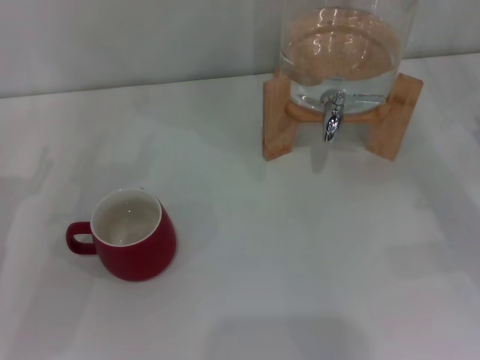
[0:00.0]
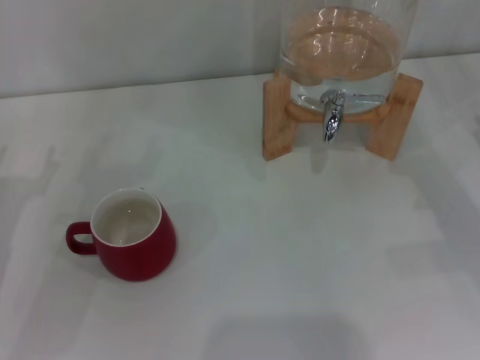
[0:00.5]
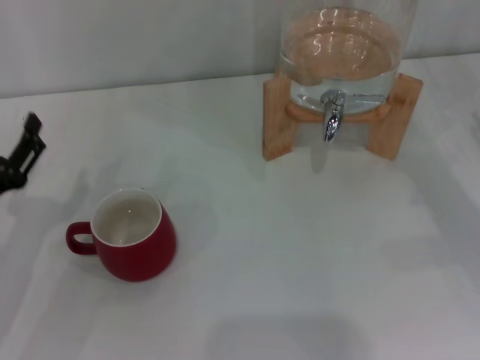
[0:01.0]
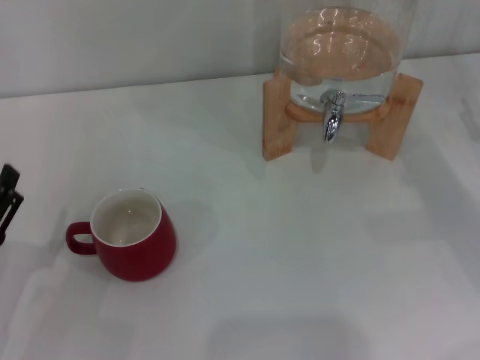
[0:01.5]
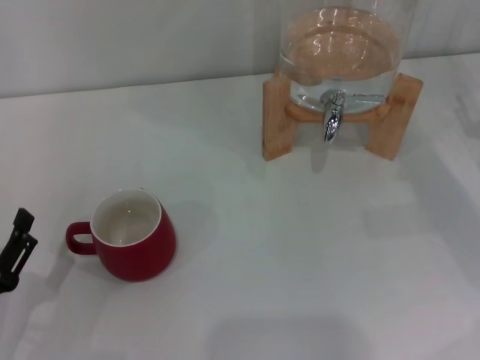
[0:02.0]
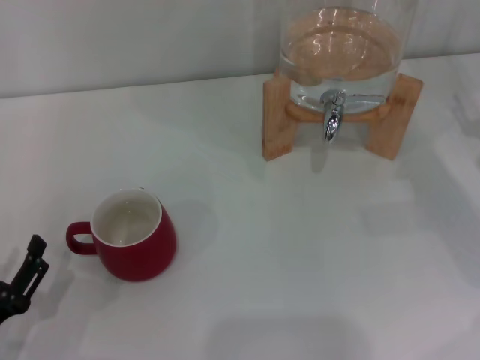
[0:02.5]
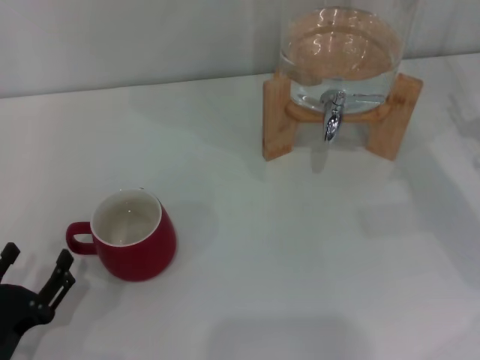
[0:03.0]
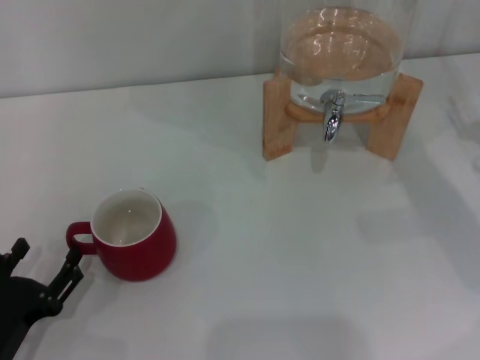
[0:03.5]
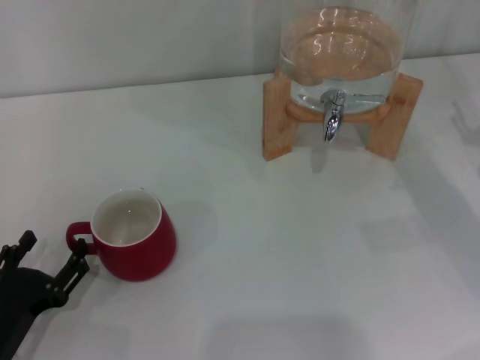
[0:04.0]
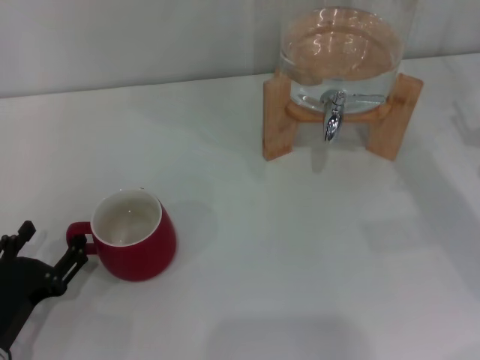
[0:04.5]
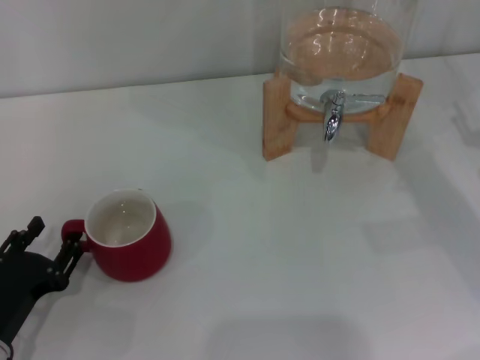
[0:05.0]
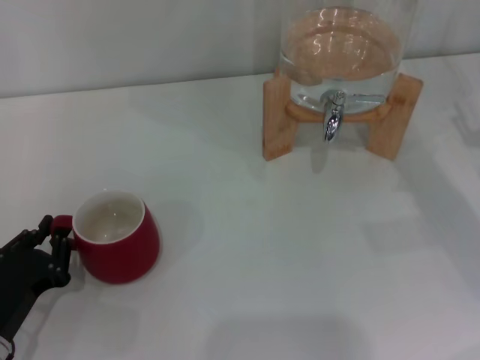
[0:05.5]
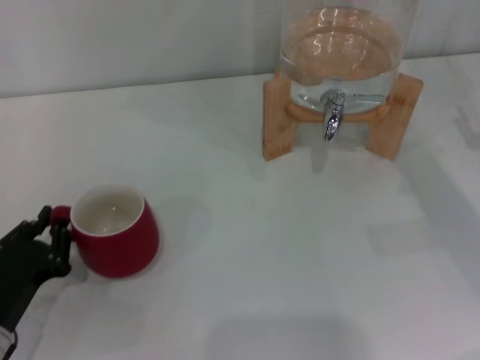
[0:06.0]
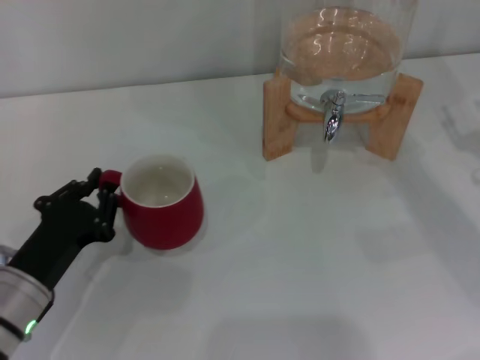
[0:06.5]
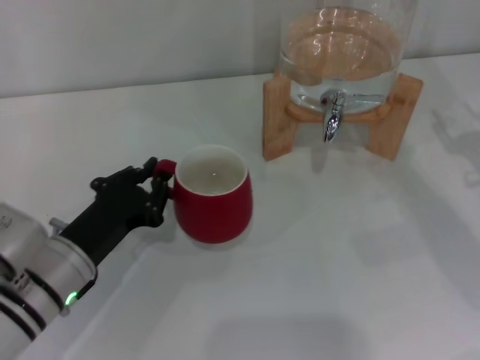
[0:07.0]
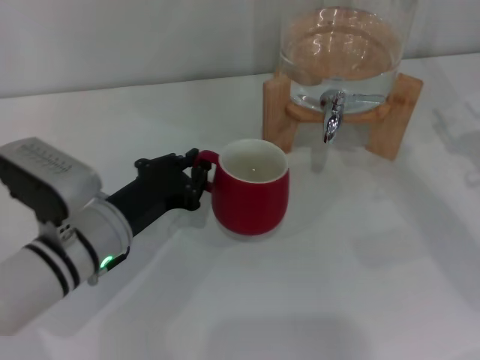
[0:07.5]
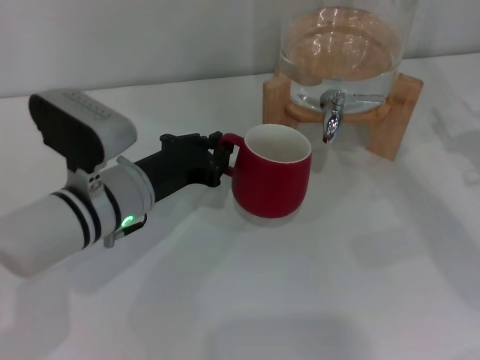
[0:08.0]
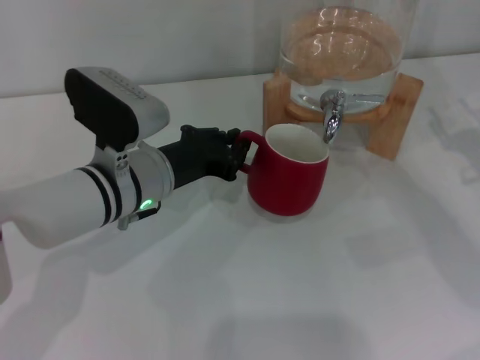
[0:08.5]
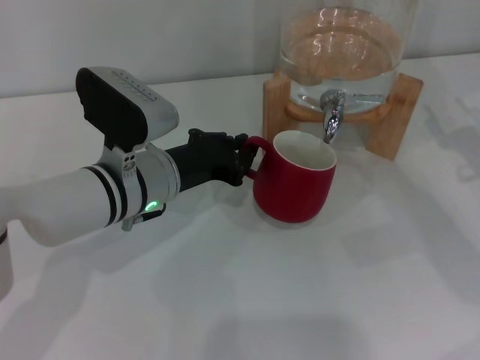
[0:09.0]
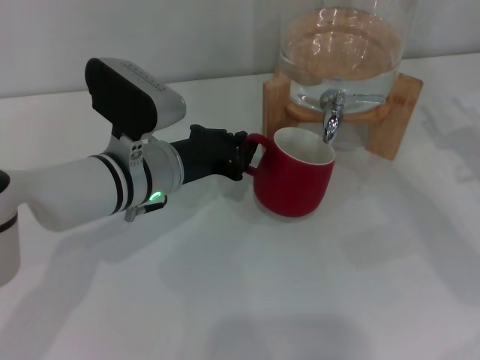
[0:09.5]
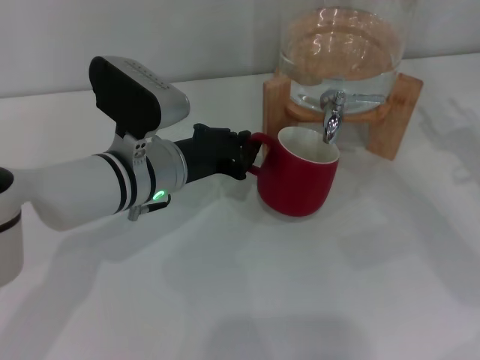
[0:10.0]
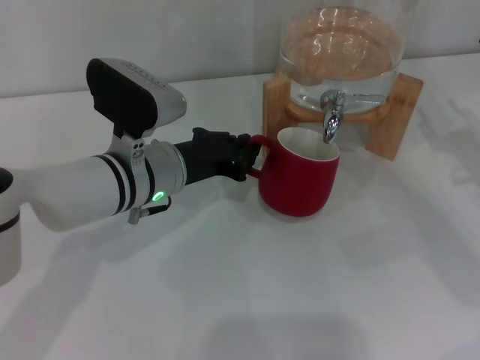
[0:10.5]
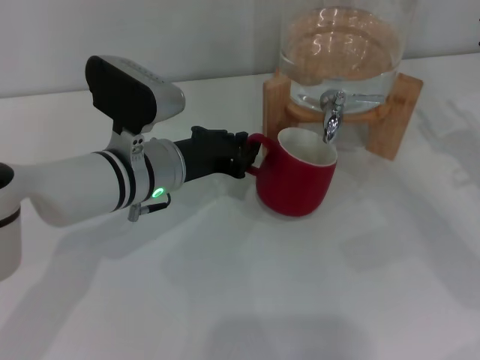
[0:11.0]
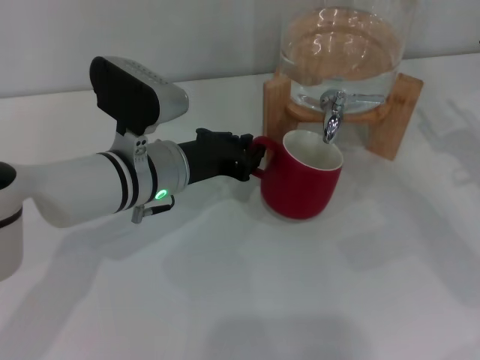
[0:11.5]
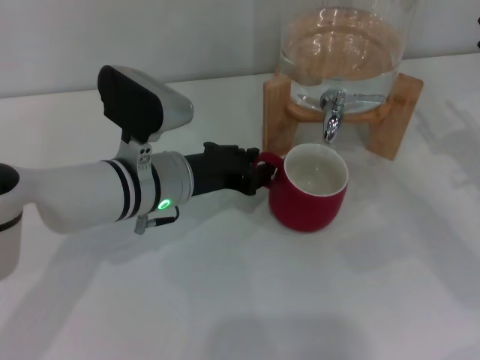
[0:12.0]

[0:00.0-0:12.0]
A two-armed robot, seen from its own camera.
Task of the whole recording: the left gripper pick up the red cup and place it horizontally under the faucet, the right gripper turn on the faucet to fill the cup, and then turn off the faucet.
0:00.0 to 0:02.0: The left gripper shifts roughly 15 cm backward and downward.
0:02.0 to 0:04.0: The grippers make only small movements.
0:04.0 to 0:06.0: The left gripper closes its fingers.
0:06.0 to 0:08.0: The left gripper shifts some 20 cm to the right, forward and upward.
0:08.0 to 0:12.0: There are only small adjustments of the grippers.

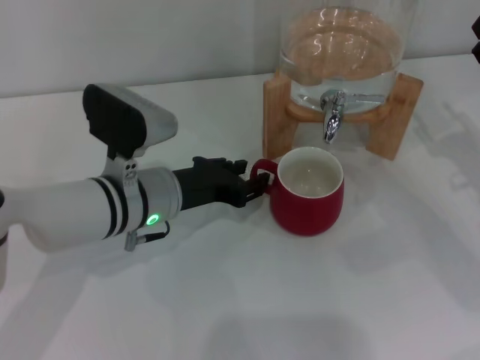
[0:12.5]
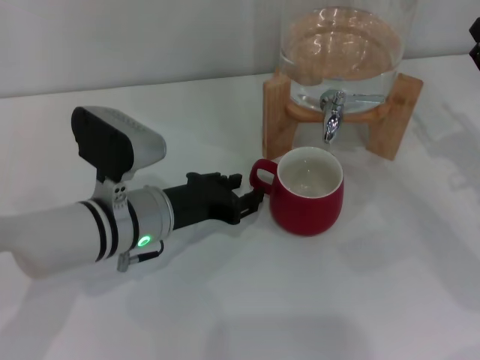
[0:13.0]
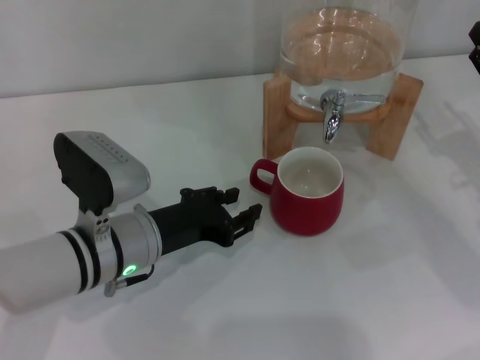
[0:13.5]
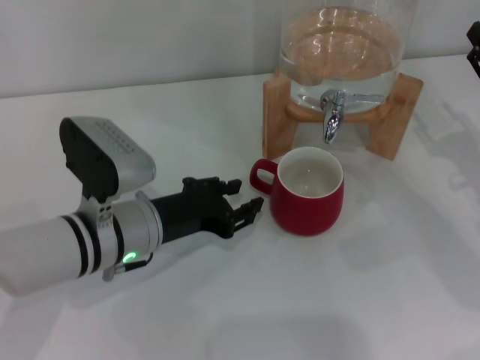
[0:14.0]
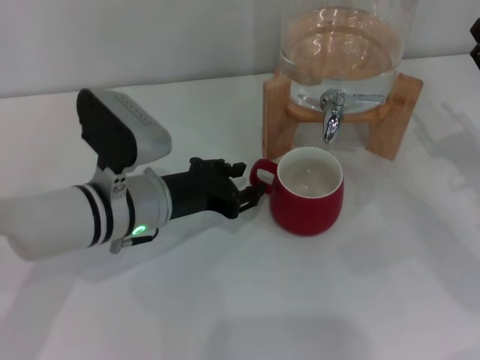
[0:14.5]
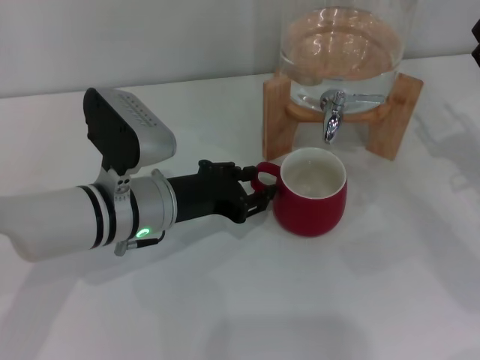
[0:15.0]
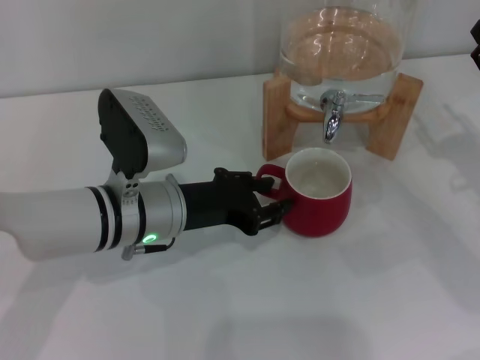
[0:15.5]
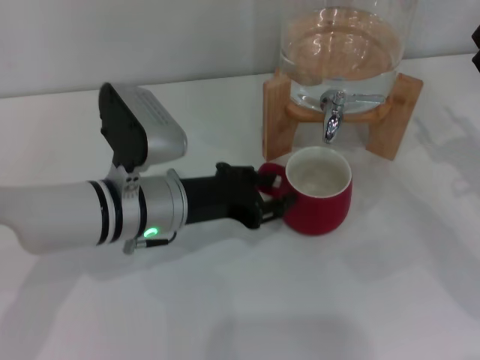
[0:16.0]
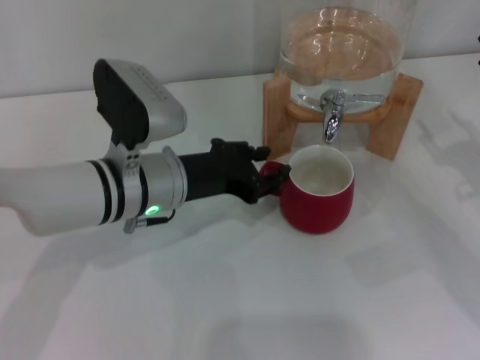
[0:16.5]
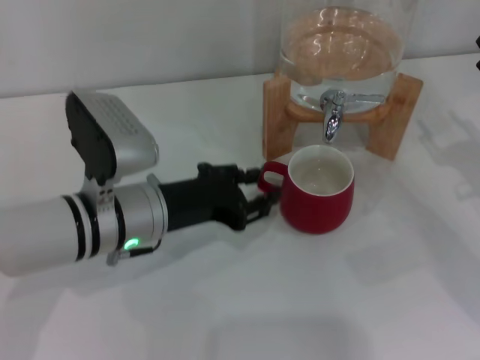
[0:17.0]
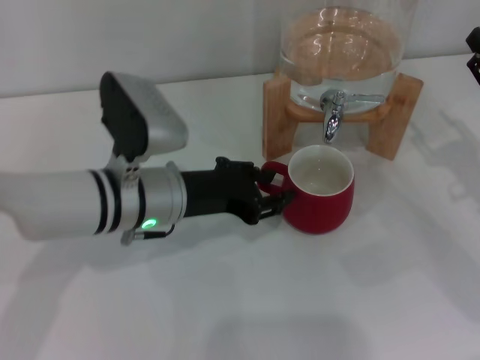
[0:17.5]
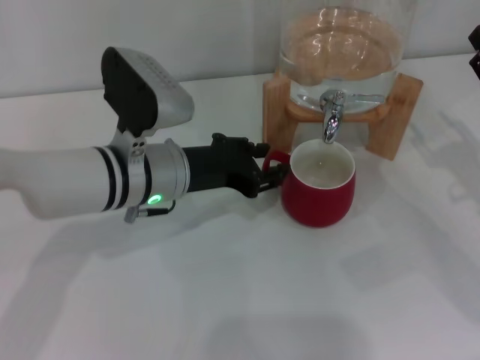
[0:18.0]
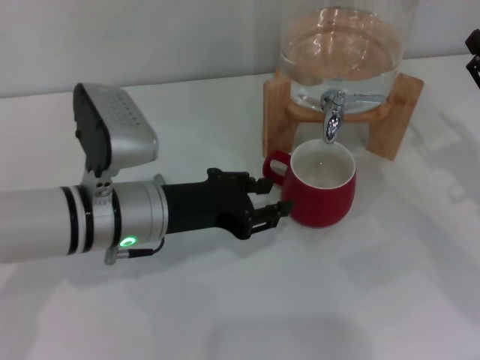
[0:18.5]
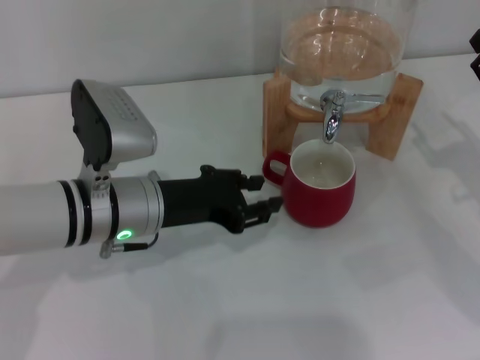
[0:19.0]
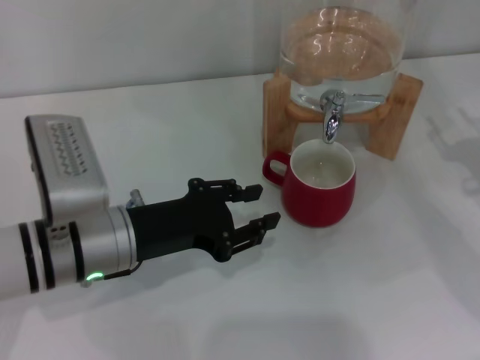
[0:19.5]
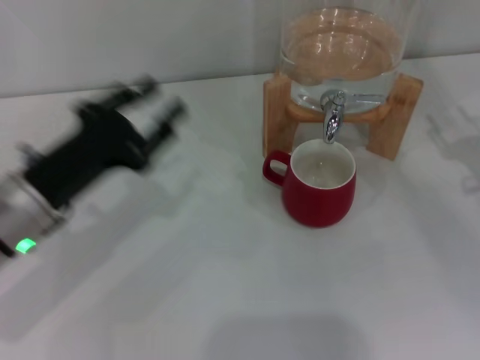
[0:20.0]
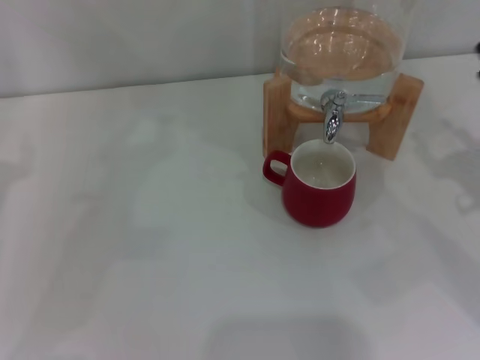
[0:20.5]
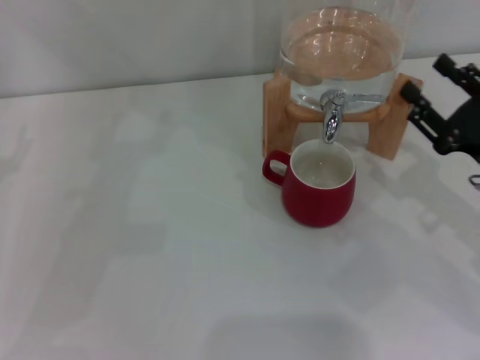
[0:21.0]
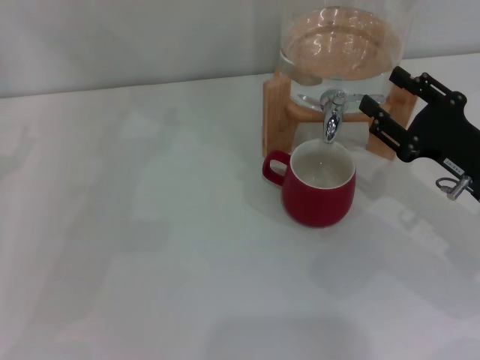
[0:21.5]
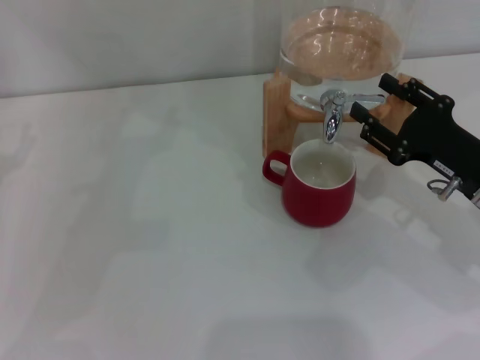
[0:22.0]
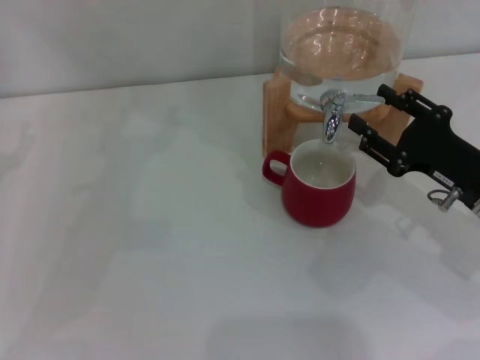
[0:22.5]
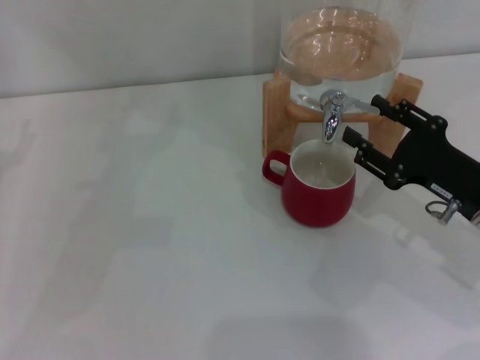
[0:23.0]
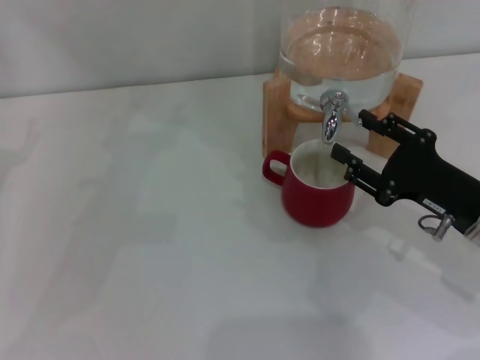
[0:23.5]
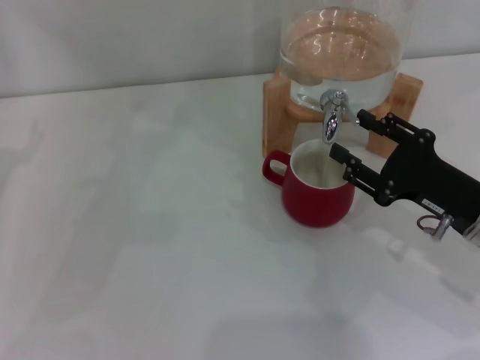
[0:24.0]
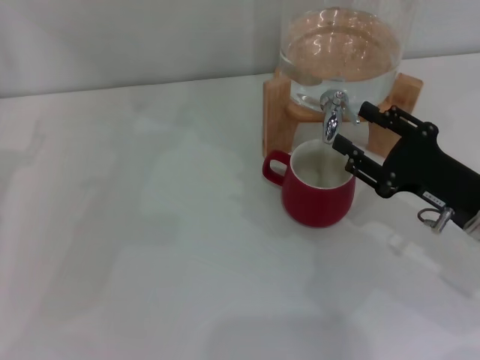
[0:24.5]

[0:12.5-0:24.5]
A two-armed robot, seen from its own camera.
Task of the whole recording: the left gripper pick up the red cup and place it horizontally under the faucet, the right gripper turn on the faucet to fill the cup, and then turn off the faucet.
Step, 0:12.5 to 0:18.5: Move the cup beneath the water dispenser nozzle with the left gripper.
Step, 0:19.0 to 0:24.0: Open the dispenser valve and fill the cup with water with the right gripper.
0:12.5 to 0:18.5: The grippers stay close to where they were, moving slightly.
0:18.5 to 0:20.5: The left gripper is displaced to the left by roughly 20 cm.
0:20.5 to 0:22.5: The right gripper heads to the left, covering some 5 cm.
0:22.5 to 0:24.5: The grippers move only a little.

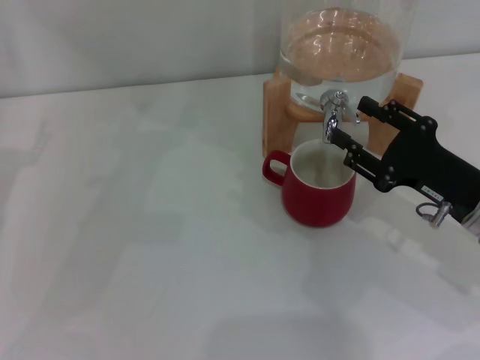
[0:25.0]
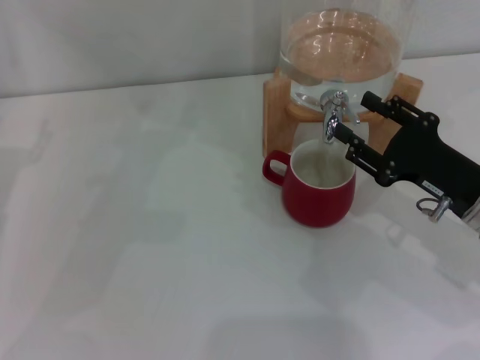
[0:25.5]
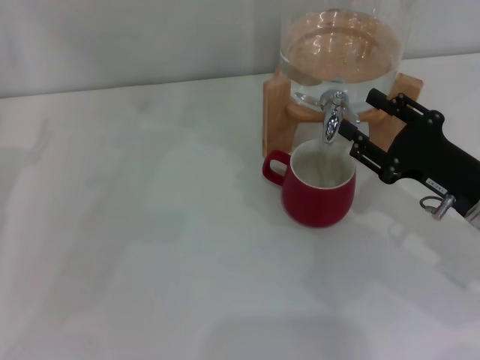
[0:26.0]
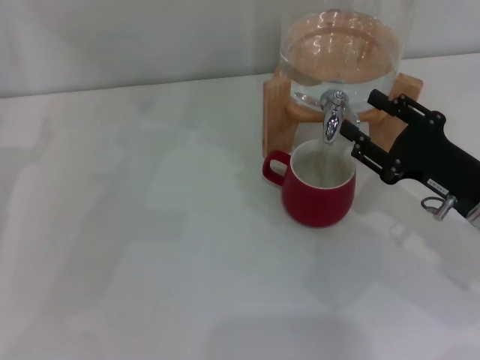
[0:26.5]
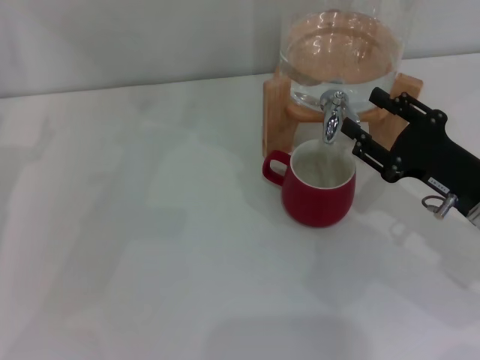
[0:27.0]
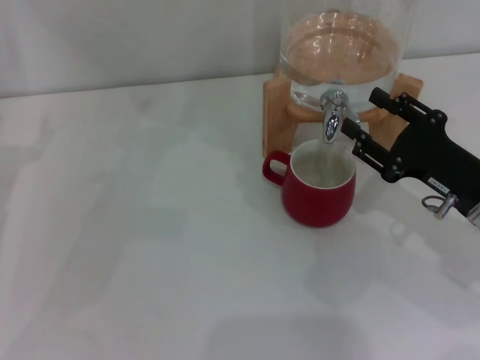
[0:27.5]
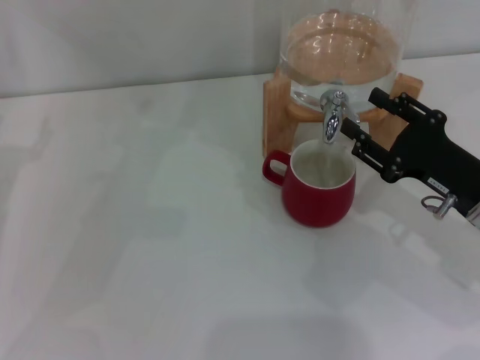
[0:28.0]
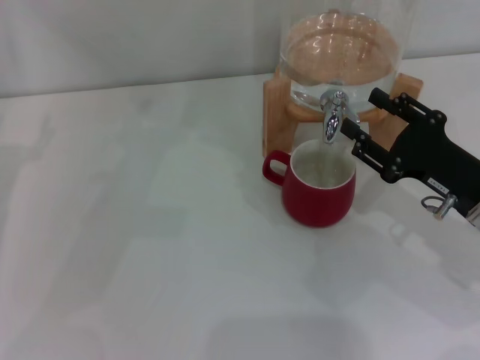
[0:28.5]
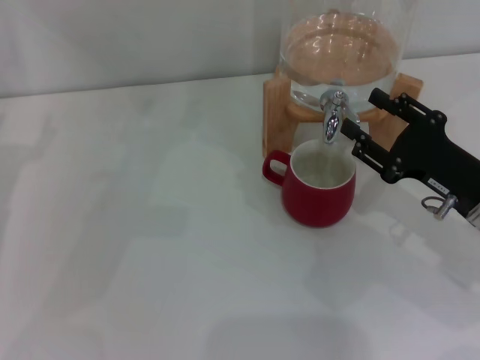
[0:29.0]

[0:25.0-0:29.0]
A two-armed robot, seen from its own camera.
Task of the whole recording: the left gripper pick up the red cup and place it horizontally under the faucet, the right gripper turn on the faucet to fill the cup, and then turn off the faucet.
0:25.0 to 0:29.0: The two grippers keep their place.
